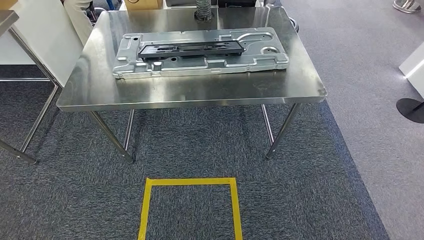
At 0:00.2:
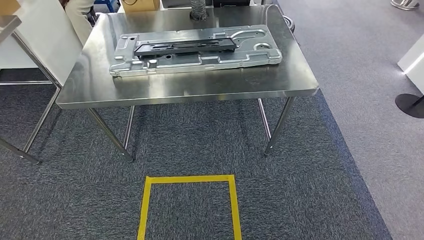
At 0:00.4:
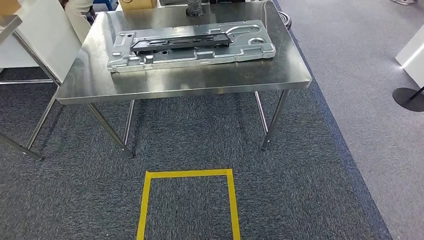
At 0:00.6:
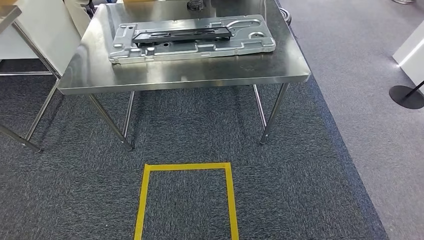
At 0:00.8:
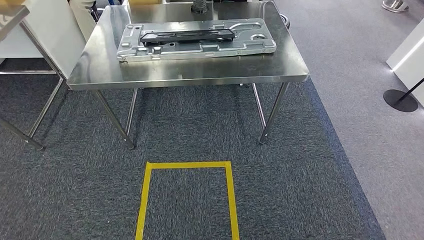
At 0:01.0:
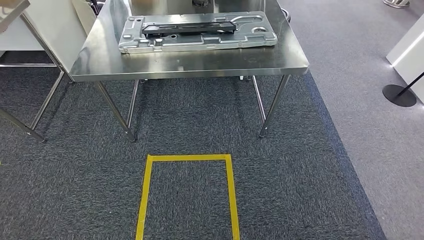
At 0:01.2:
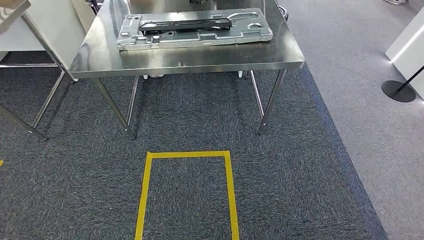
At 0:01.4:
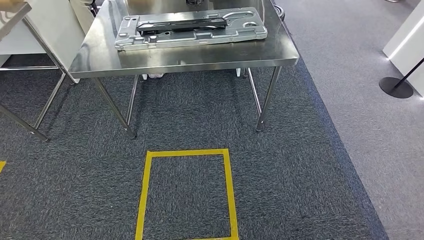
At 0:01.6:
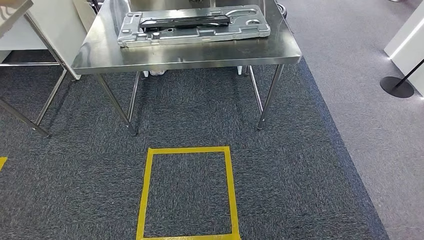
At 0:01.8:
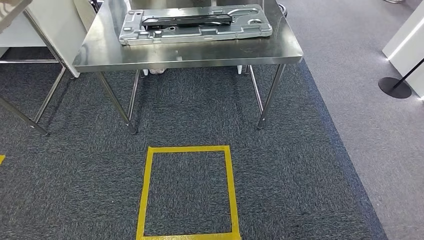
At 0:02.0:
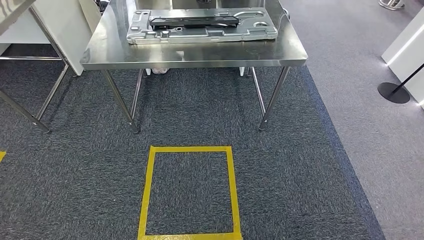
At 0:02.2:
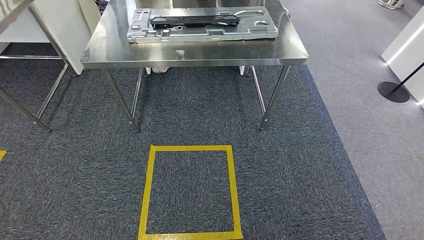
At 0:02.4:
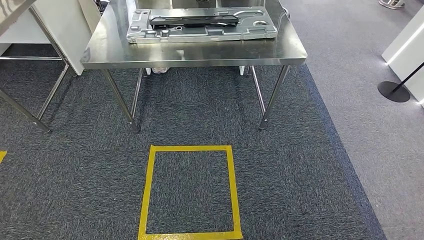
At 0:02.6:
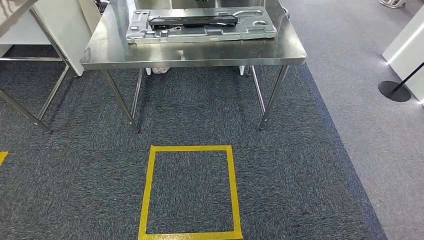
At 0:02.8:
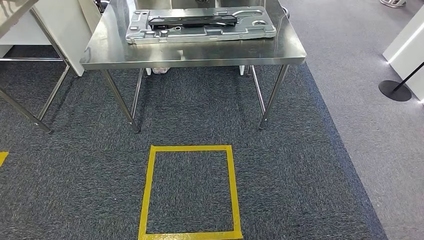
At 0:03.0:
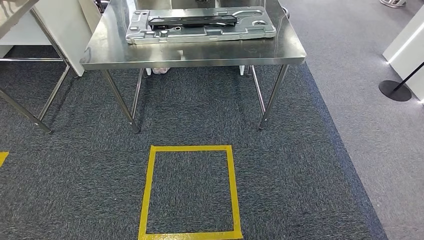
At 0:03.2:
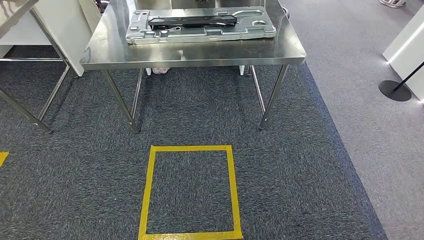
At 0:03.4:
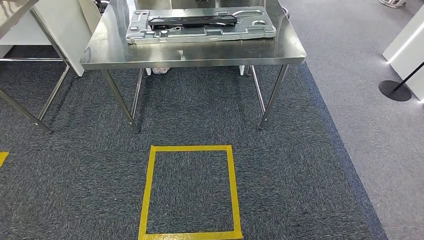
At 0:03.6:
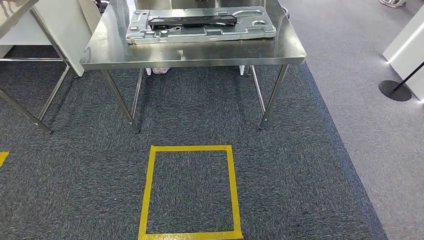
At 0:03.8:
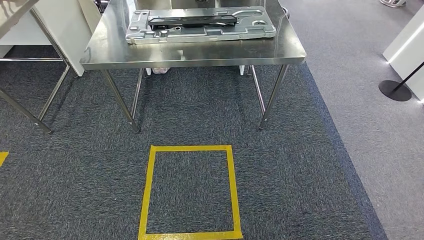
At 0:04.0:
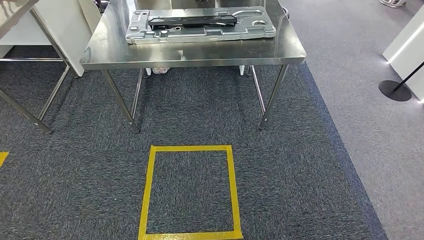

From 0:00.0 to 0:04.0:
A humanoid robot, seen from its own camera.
Step, from 0:00.0 to 0:04.0: Move to the initial position of the workbench.
From 0:01.4 to 0:02.6: The hands move only a little.
